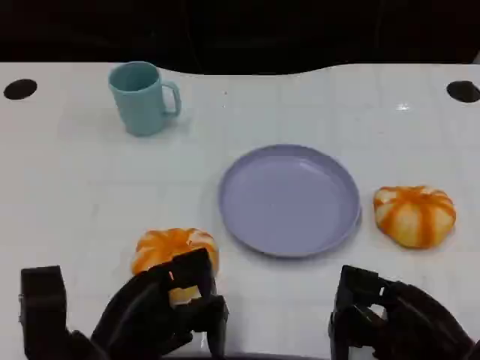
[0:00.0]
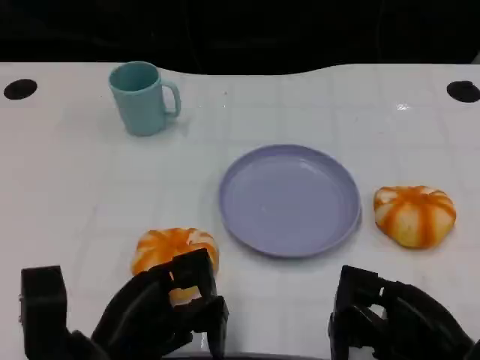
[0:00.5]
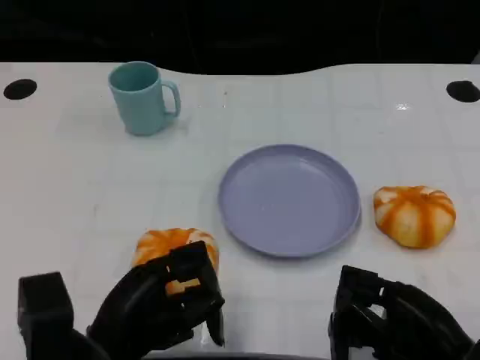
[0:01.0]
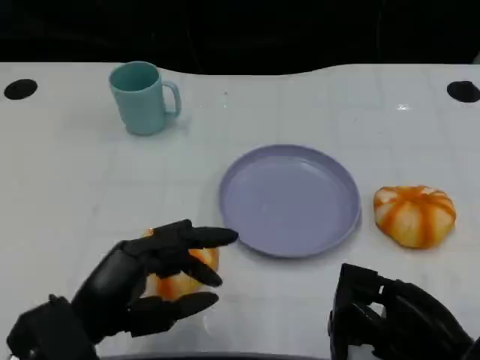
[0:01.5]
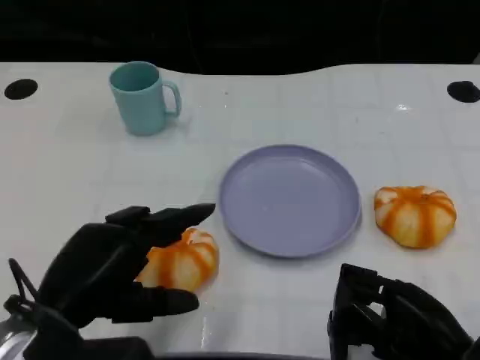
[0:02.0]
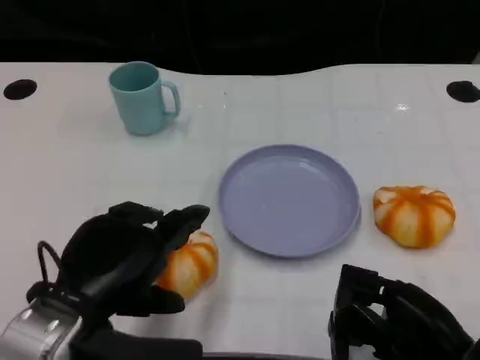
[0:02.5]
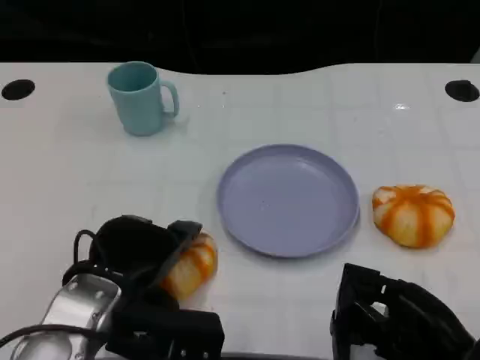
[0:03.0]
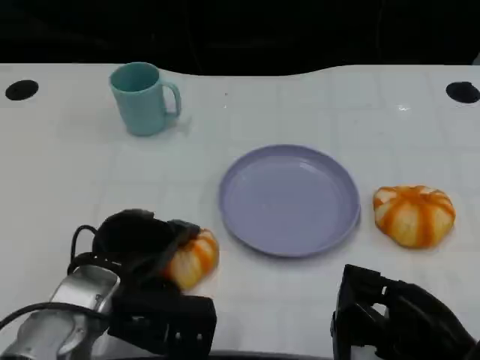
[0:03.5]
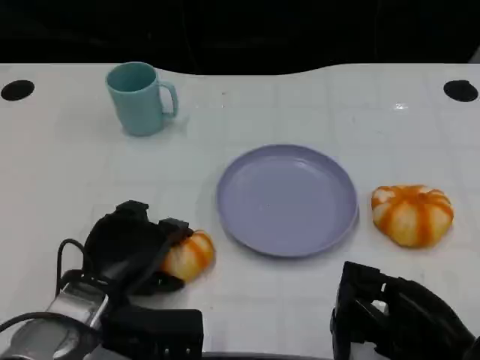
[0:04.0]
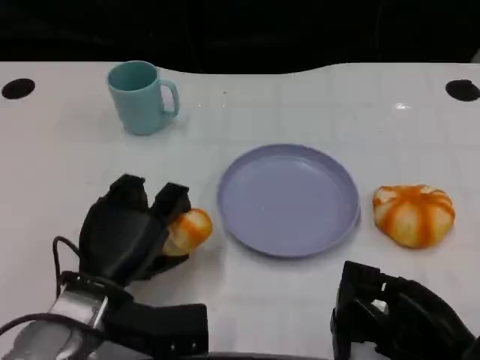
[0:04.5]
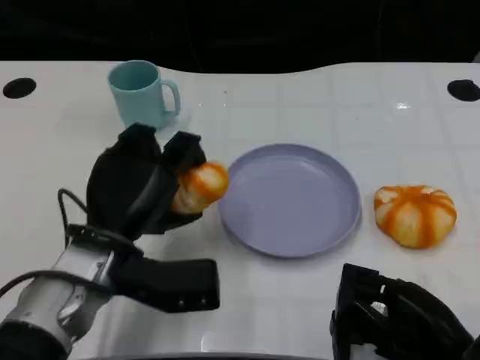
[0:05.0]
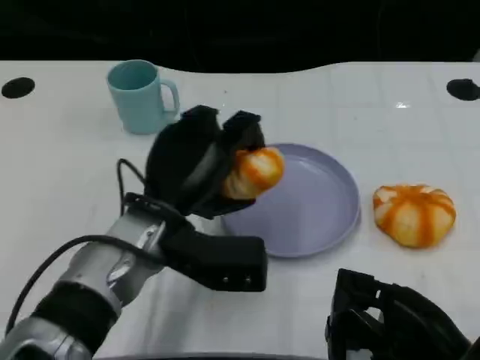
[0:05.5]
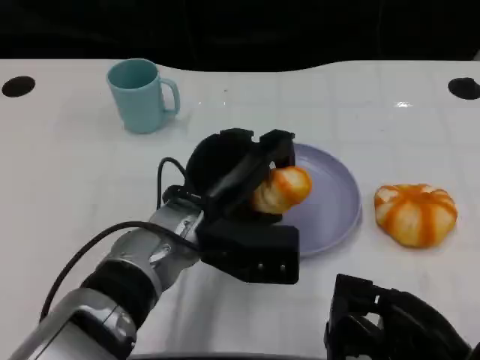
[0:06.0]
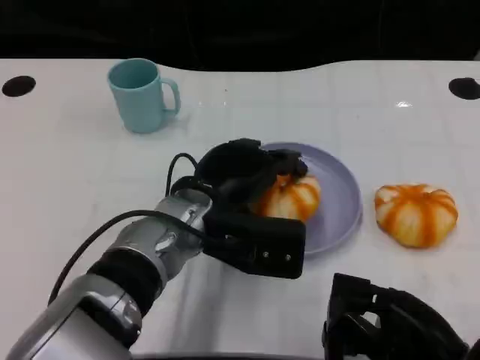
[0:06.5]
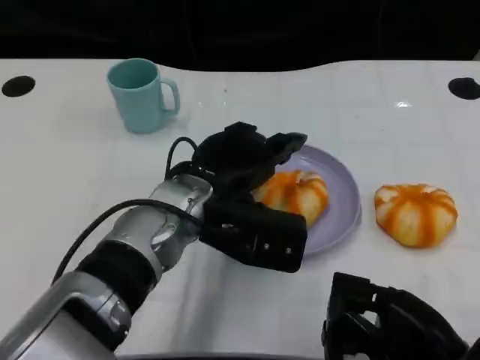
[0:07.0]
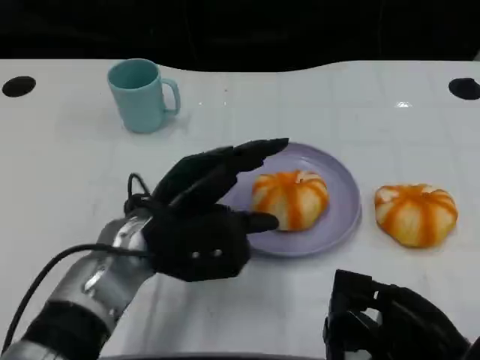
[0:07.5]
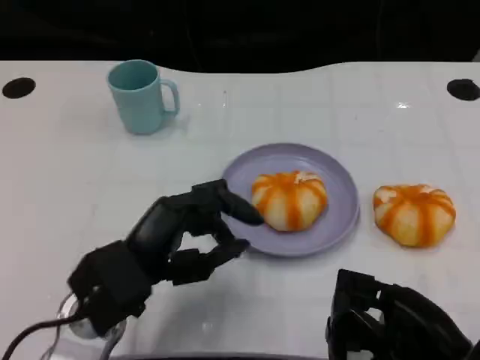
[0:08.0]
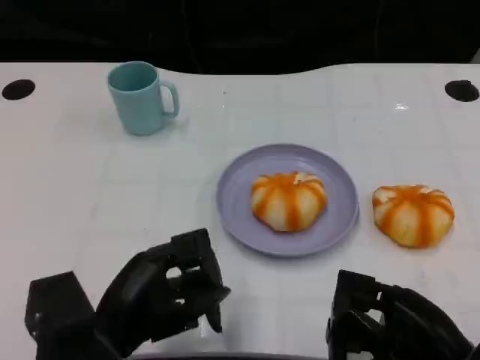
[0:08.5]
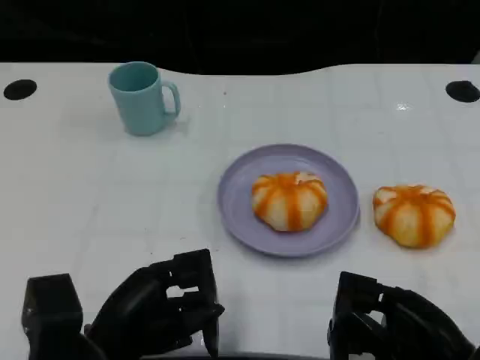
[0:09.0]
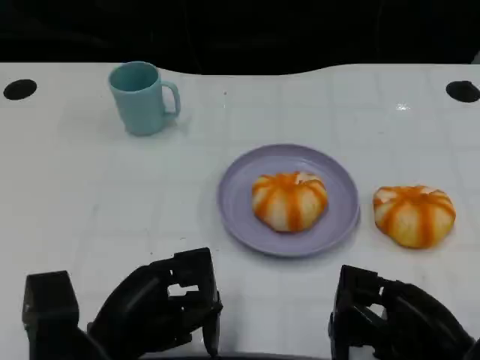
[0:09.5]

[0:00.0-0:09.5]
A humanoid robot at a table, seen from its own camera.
Task of the whole recording: Grasp the bread from the table and place it into the plate.
0:00.0 to 0:02.0: The left hand is displaced upward by some 5 cm.
0:02.0 to 0:04.0: The left hand is displaced downward and forward by some 10 cm.
0:04.0 to 0:05.5: The left hand is displaced to the right and upward by roughly 10 cm.
0:07.5 to 0:09.5: The left hand is displaced backward, to the left and downward by approximately 10 cm.

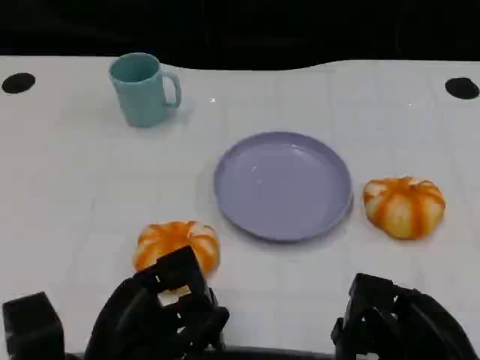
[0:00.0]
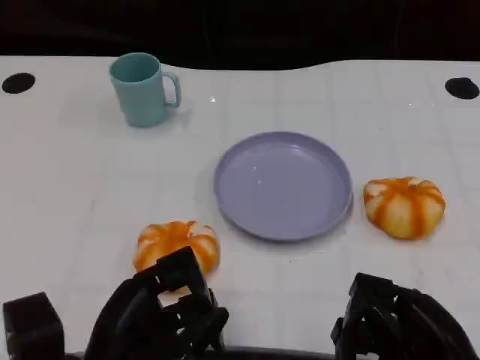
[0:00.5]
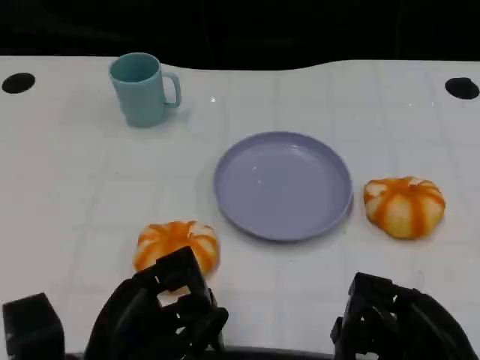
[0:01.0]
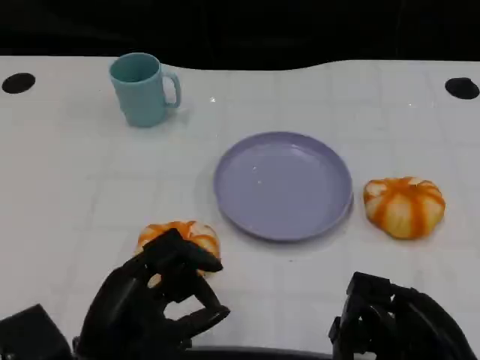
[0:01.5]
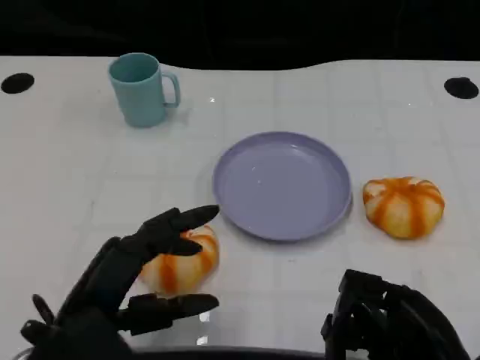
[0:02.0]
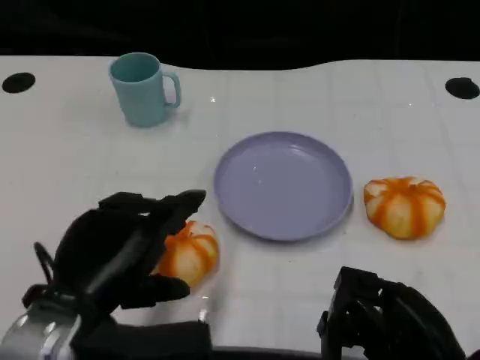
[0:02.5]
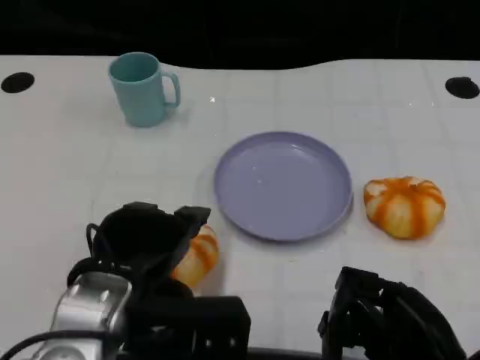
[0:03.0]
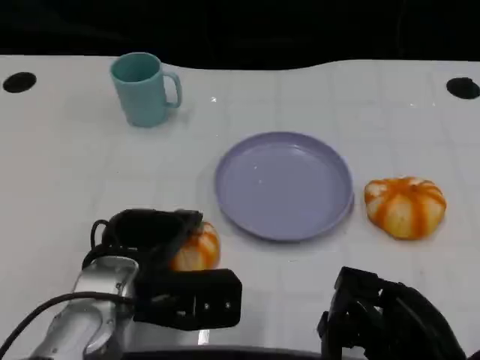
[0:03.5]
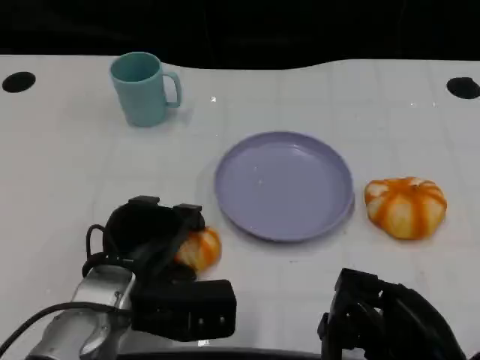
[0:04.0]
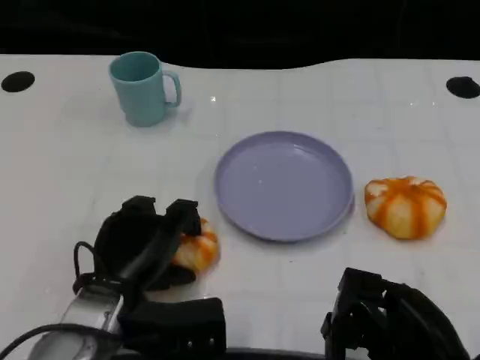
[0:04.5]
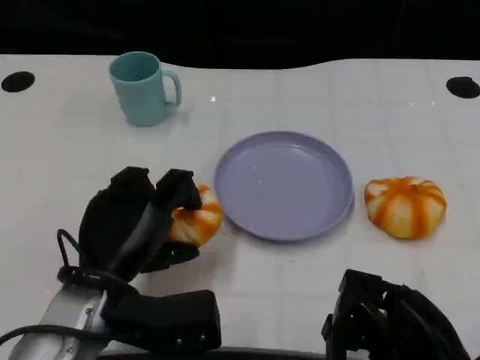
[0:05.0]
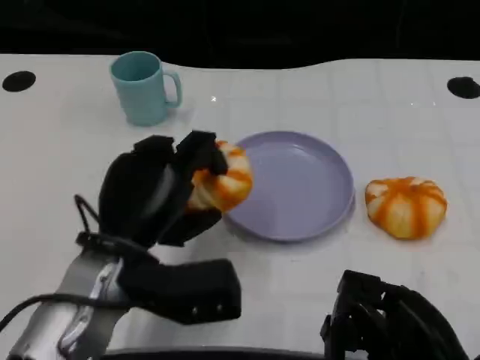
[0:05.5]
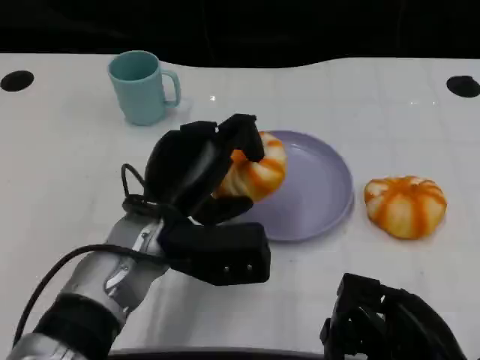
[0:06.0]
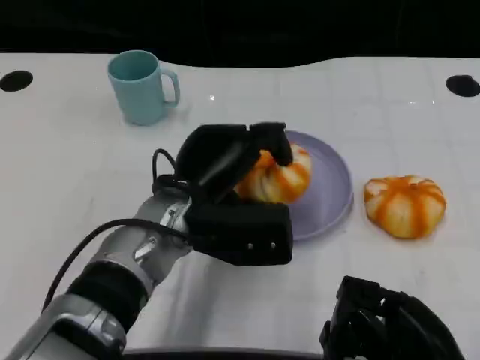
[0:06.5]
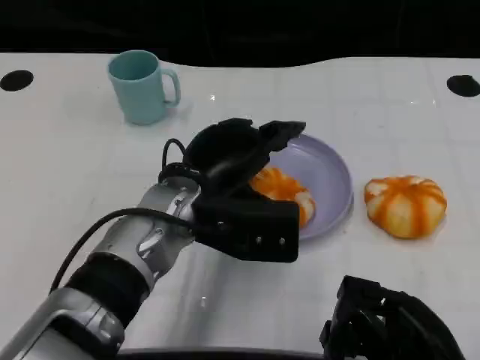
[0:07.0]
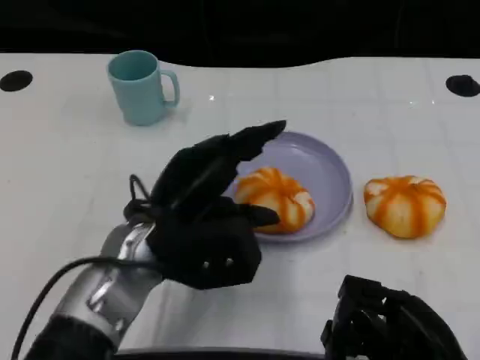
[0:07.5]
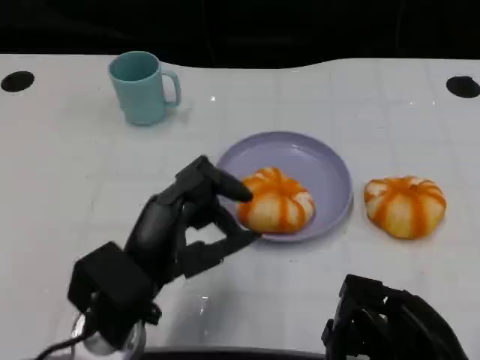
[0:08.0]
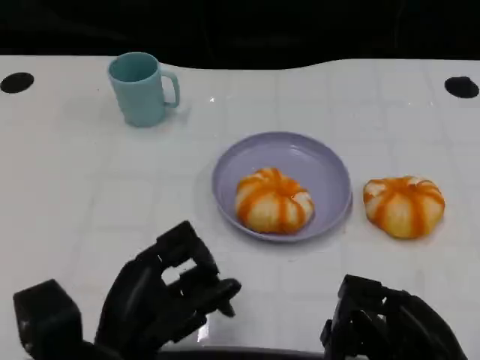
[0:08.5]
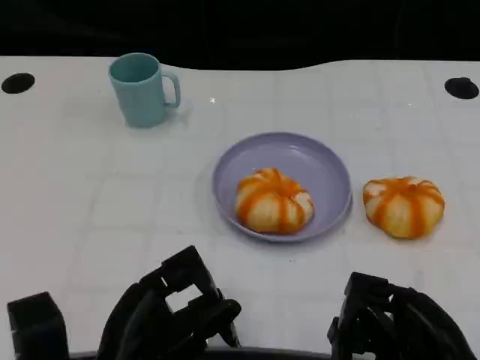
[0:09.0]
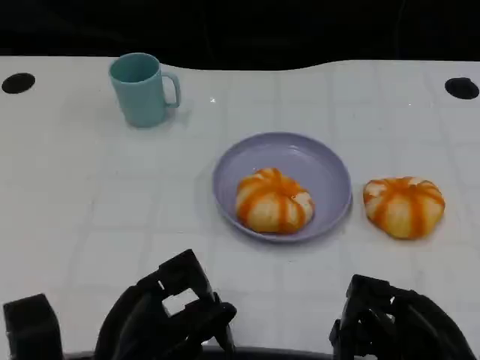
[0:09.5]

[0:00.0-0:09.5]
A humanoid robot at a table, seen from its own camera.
Task of the whole recording: Grasp the bread from the table and place it into the plate.
0:00.0 to 0:02.0: The left hand shifts by roughly 5 cm.
0:02.0 to 0:04.0: The left hand travels forward by approximately 10 cm.
0:04.0 to 0:05.5: The left hand shifts roughly 5 cm upward.
0:07.5 to 0:09.5: The left hand travels backward, downward and to the left by about 15 cm.

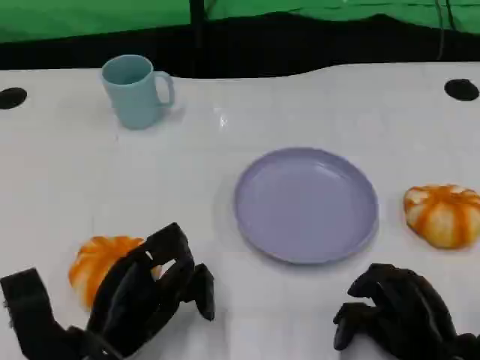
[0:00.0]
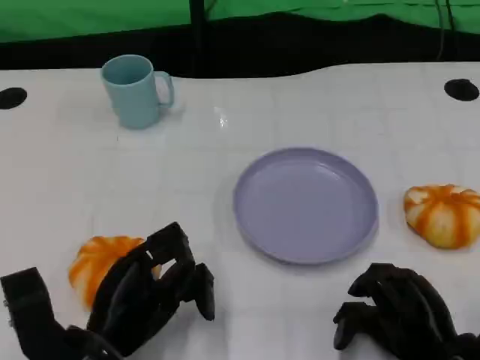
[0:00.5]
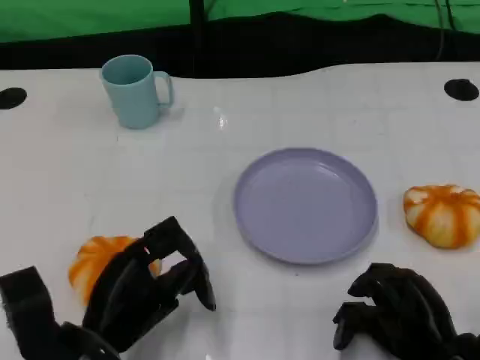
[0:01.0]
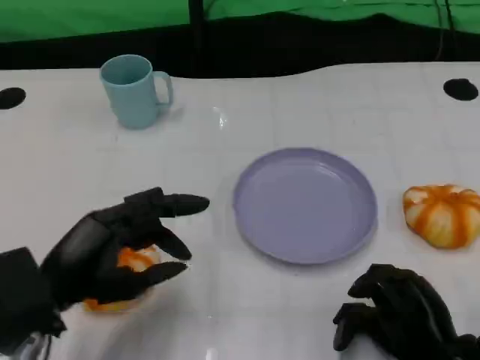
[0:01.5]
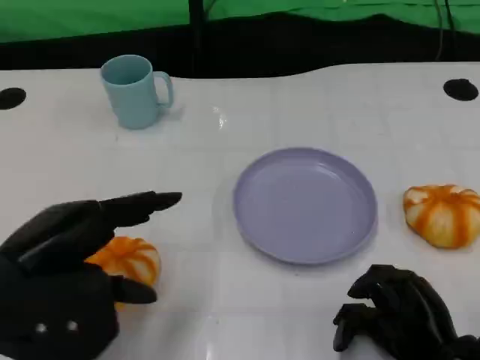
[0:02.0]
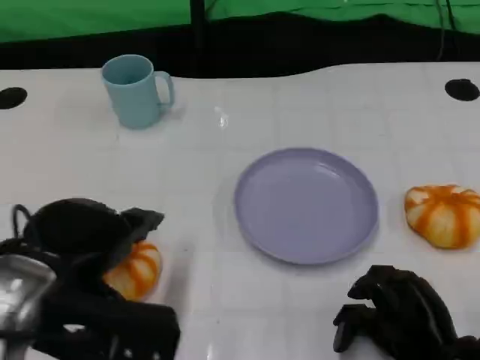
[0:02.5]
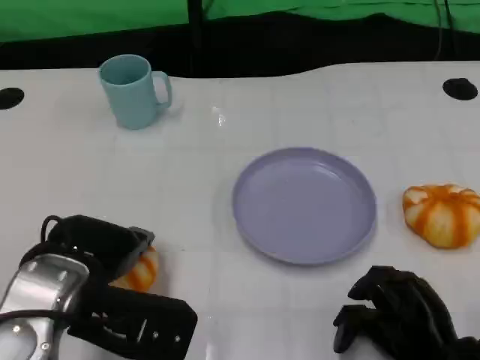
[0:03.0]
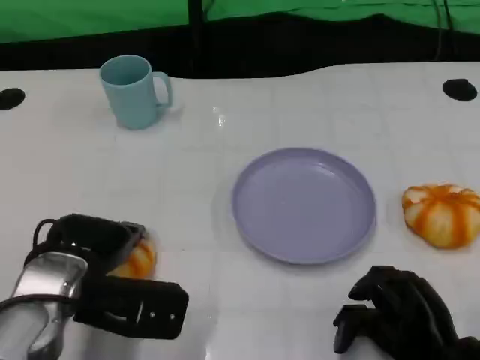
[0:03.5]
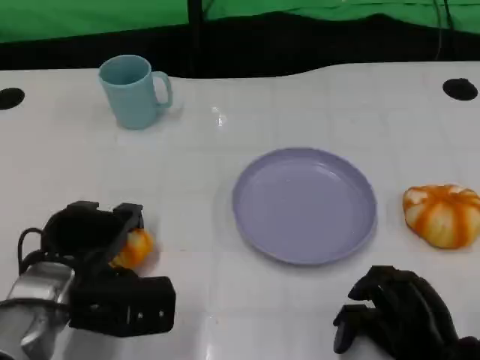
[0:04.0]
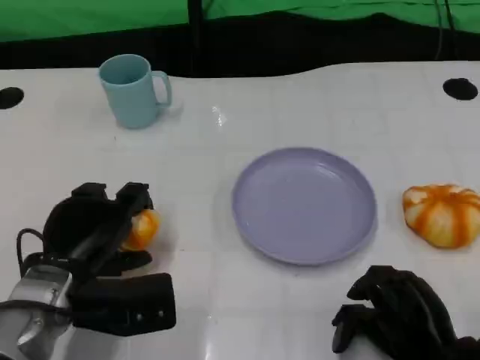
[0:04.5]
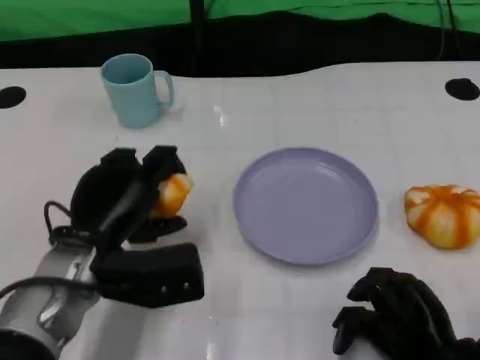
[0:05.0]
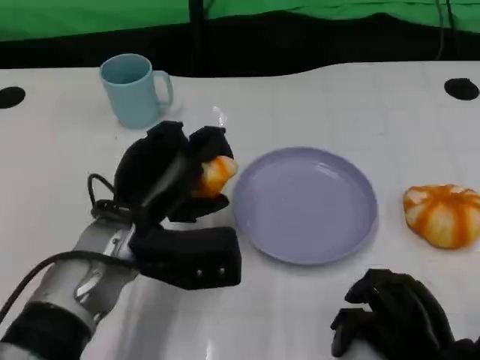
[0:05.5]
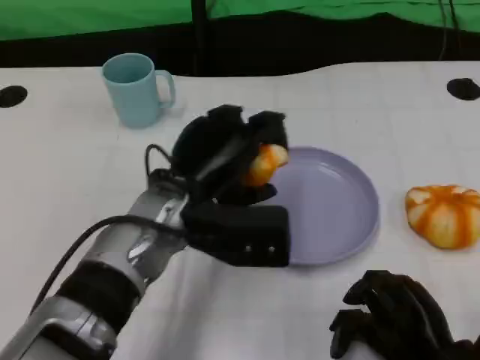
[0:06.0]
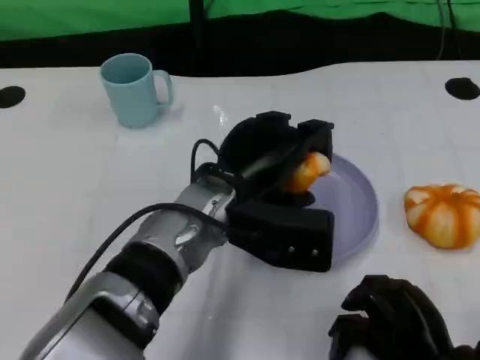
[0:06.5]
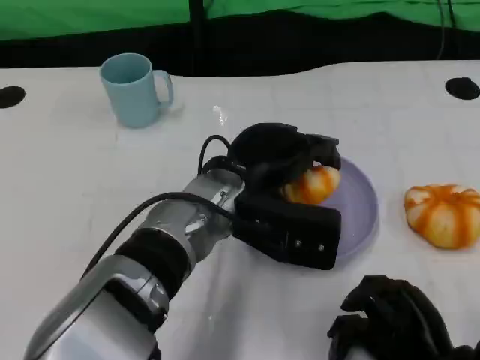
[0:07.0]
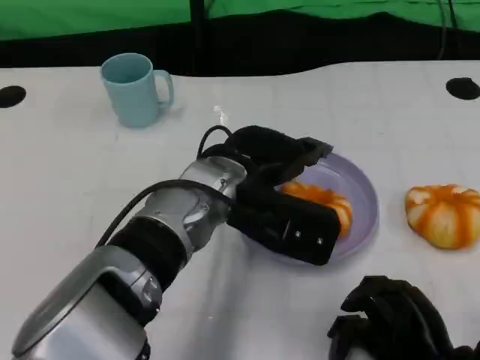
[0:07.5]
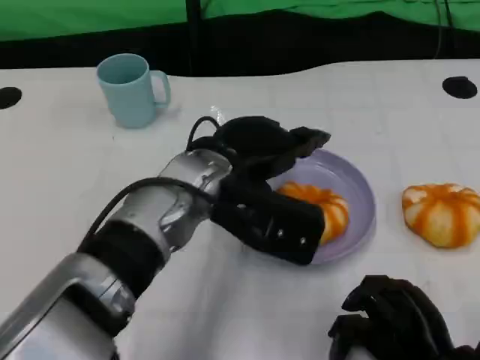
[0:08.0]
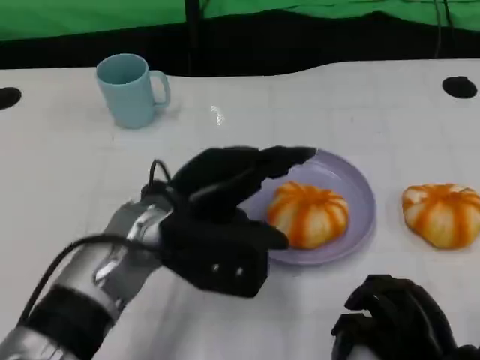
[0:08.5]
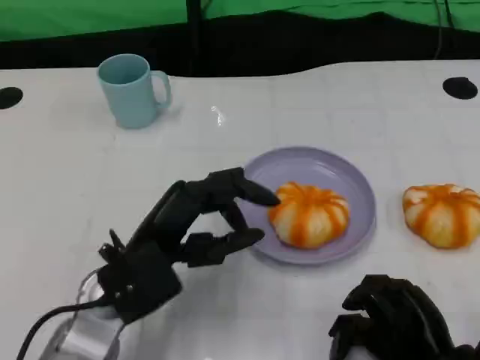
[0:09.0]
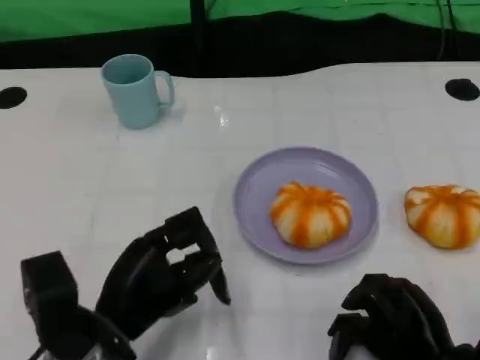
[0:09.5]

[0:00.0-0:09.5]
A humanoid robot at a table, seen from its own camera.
Task of the whole recording: Grasp the bread from the table and place it into the plate.
0:00.0 to 0:02.0: The left hand shifts about 15 cm upward and to the left.
0:02.0 to 0:04.0: The left hand shifts some 10 cm downward and forward.
0:04.0 to 0:05.5: The left hand is displaced to the right by roughly 5 cm.
0:05.5 to 0:07.5: The left hand goes about 10 cm to the right.
0:07.5 to 0:09.5: The left hand goes about 20 cm to the left, backward and downward.
